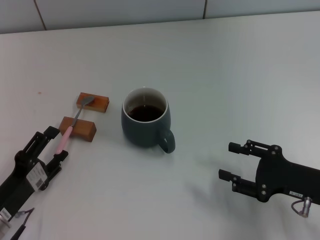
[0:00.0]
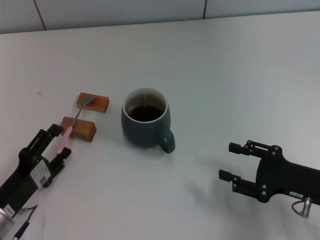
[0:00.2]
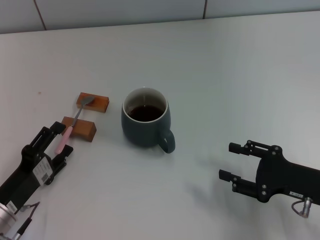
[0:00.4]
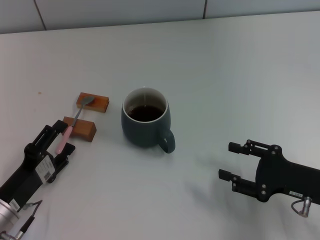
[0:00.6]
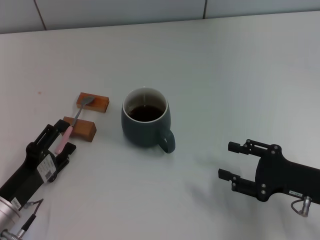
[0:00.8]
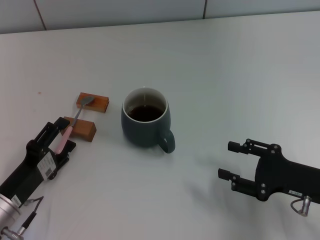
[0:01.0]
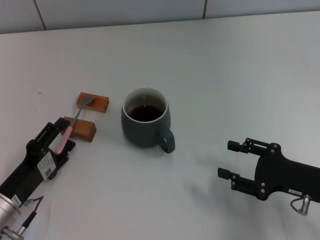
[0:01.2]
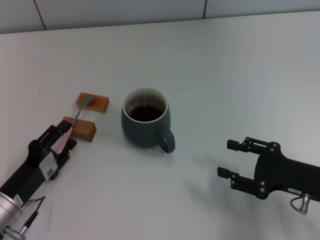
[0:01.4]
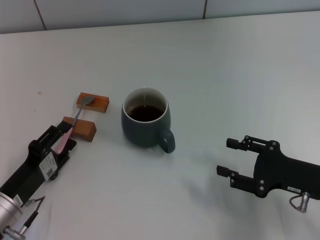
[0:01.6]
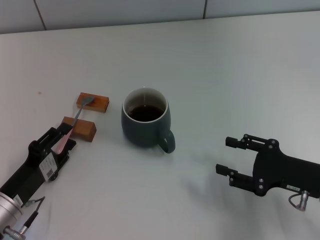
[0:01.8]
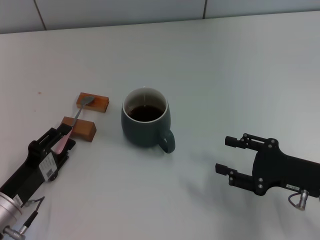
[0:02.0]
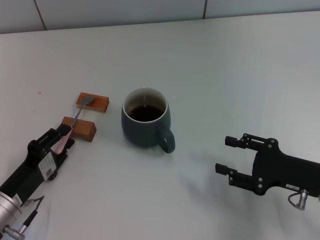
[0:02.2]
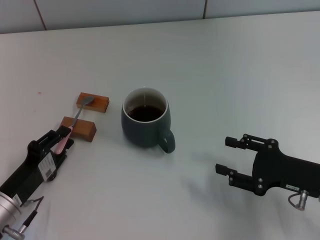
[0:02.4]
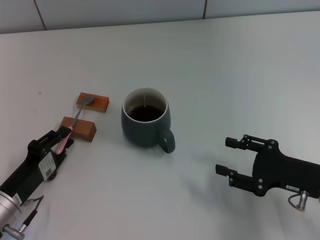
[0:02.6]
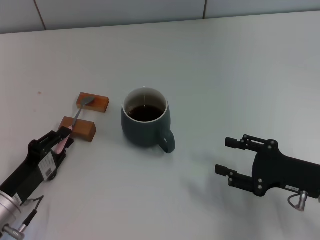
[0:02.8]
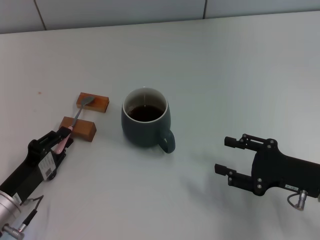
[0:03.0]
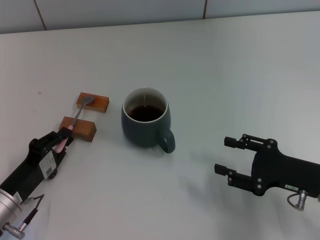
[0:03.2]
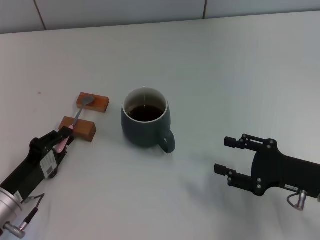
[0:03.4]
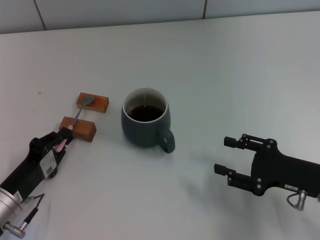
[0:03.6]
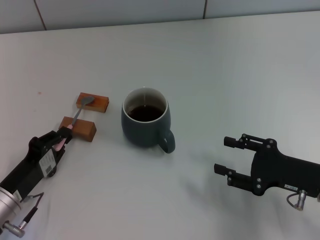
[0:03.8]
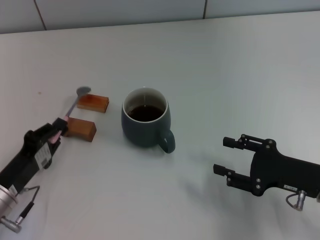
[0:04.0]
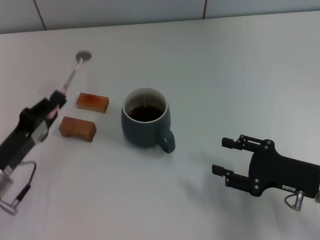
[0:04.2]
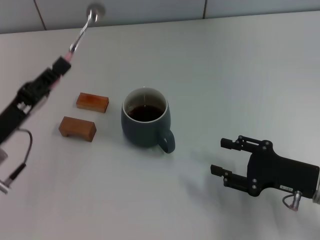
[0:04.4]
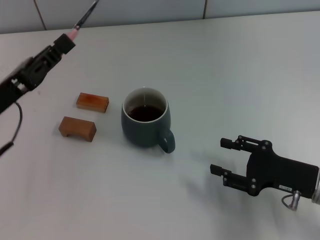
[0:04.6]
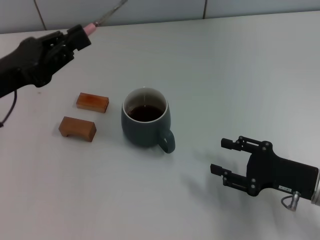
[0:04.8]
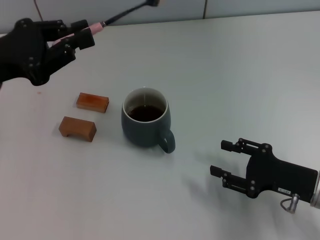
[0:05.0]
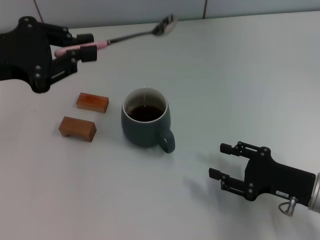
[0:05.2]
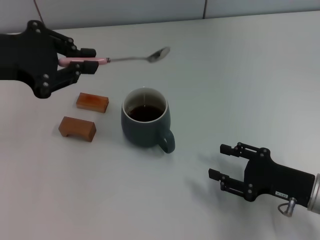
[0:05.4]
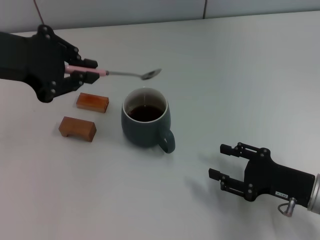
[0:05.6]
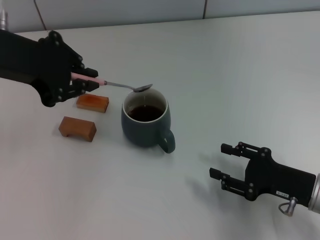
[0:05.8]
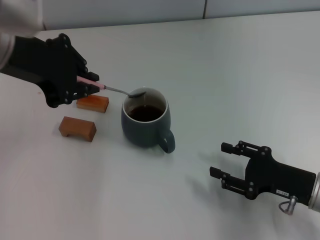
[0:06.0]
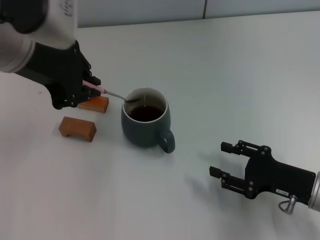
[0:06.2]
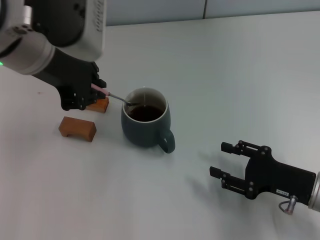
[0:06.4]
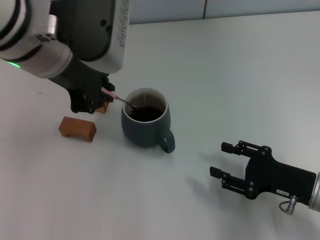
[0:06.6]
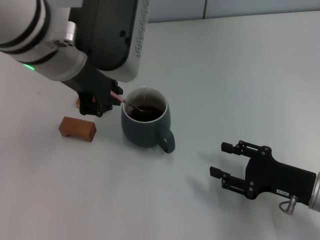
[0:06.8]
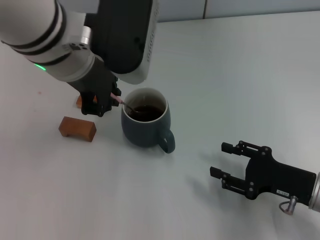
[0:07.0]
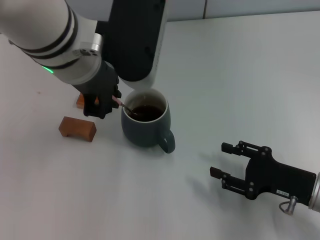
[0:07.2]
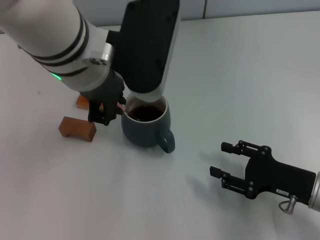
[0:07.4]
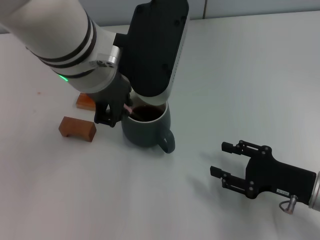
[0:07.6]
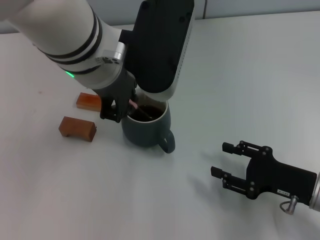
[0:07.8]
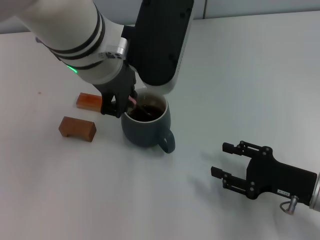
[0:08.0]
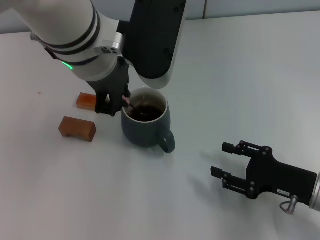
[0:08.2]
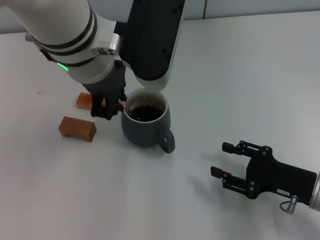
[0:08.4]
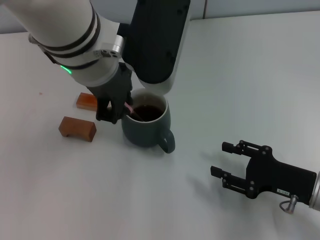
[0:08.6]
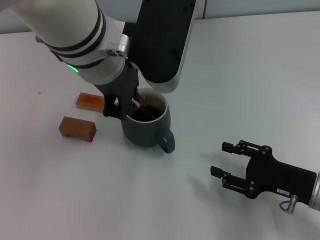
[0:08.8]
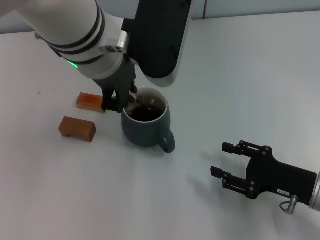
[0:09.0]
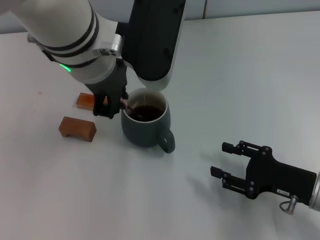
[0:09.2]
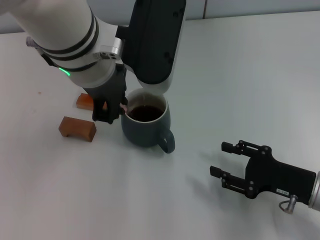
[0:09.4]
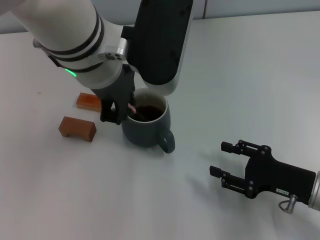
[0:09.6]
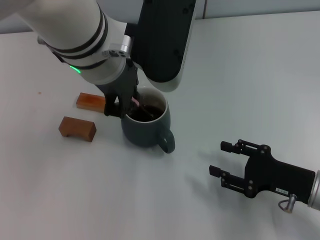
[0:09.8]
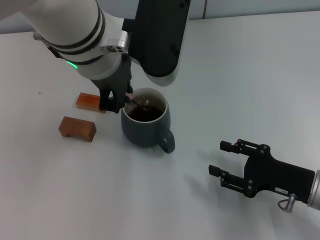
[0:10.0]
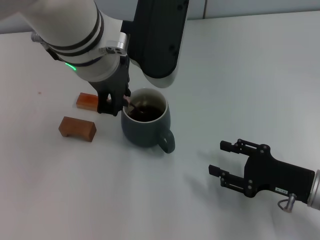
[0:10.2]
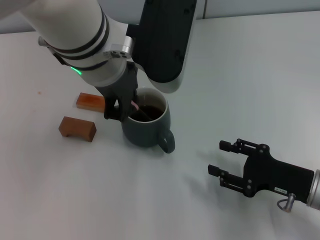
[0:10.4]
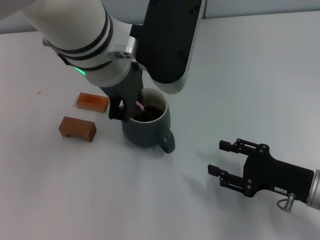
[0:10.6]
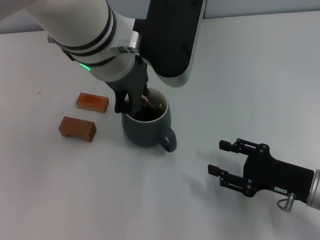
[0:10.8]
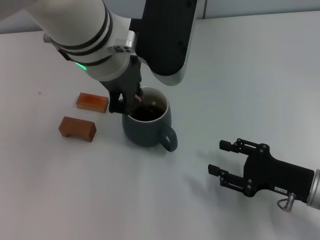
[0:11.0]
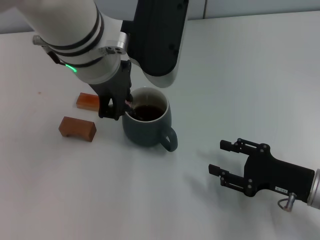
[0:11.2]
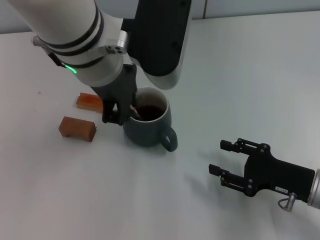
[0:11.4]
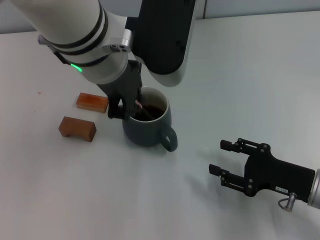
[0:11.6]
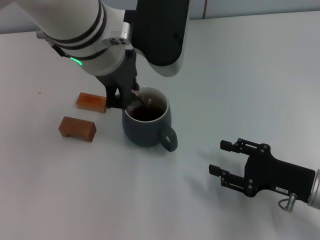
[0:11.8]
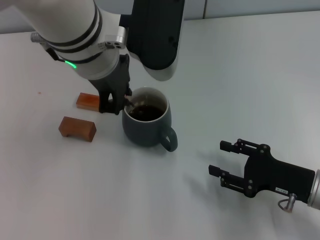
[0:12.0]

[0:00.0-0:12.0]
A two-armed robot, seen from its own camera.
Task of the whole recording: Move the grey cup to the center, lift the pink spoon, stir it three times in the cup, and put the spoon into the cup.
Step, 0:00.0 to 0:03.8: Pick up the spoon with the left gripper.
0:00.0 to 0:01.6: The grippers move only a little.
0:01.6 to 0:03.0: The left gripper closes up.
0:03.0 to 0:04.4: The left gripper moves upward and forward, roughly 10 cm.
0:04.4 to 0:06.0: The left gripper travels upward by approximately 20 cm.
0:06.0 to 0:07.6: The left gripper moves to the right, roughly 10 cm.
0:07.6 to 0:09.0: The grippers move only a little.
0:09.0 to 0:10.4: Neither gripper changes place.
0:10.4 to 0:12.0: Both grippers stay put.

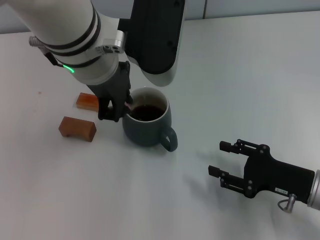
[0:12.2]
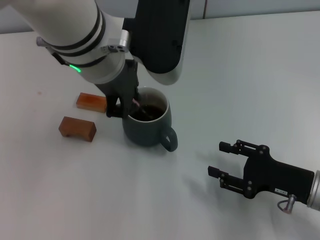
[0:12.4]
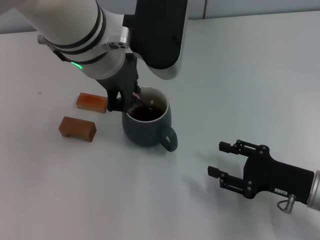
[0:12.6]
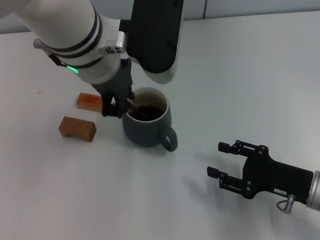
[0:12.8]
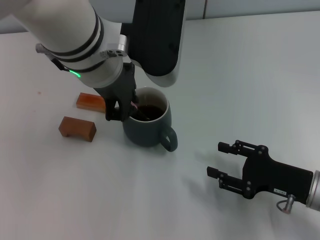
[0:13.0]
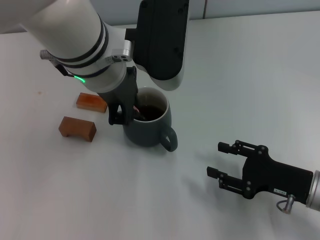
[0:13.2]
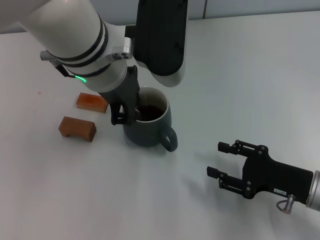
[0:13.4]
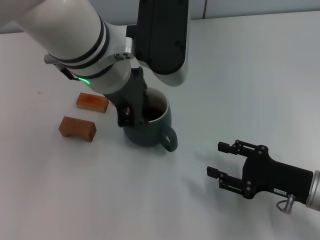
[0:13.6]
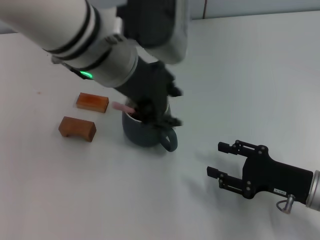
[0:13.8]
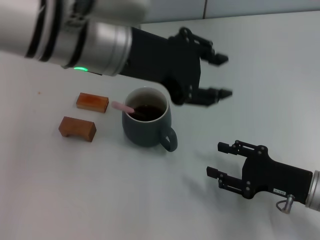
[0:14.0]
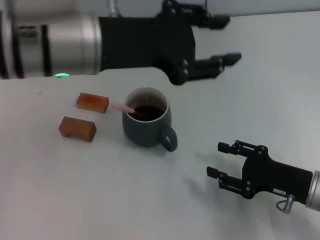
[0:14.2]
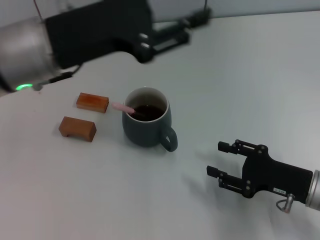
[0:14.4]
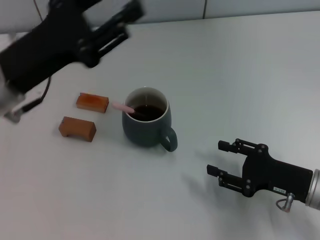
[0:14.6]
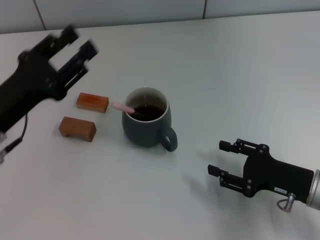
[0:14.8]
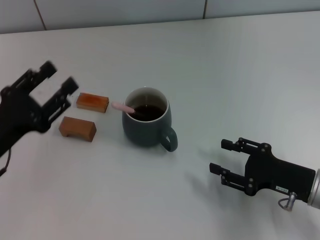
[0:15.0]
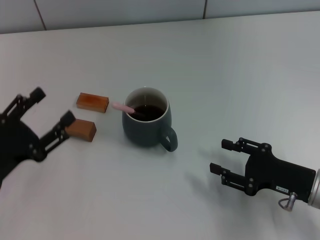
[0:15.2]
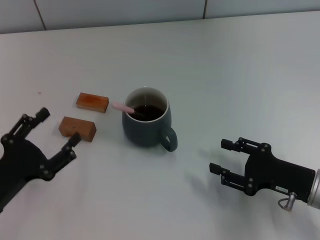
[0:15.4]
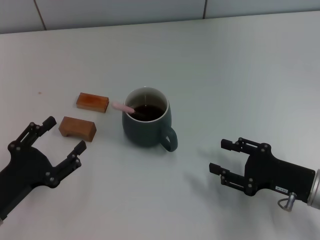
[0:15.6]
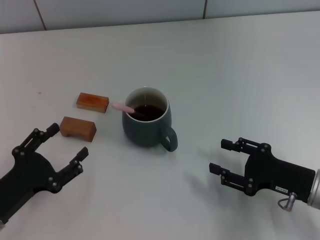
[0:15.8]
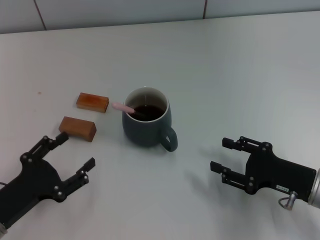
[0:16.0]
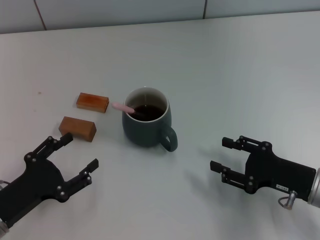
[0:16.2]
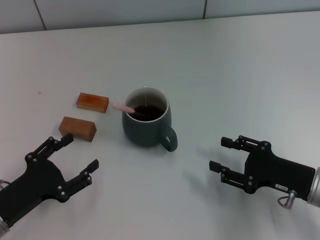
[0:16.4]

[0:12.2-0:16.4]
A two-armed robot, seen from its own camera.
Task of the whole recording: Move the grey cup to the center, lift the pink spoon, stir it three times in the cup, and put the spoon into the cup.
0:12.2 to 0:13.6: There are only small adjustments of the grippers.
0:13.6 to 0:15.0: The left gripper heads to the left, downward and backward, covering about 30 cm, and opens up.
0:15.0 to 0:16.4: The left gripper heads downward and backward, covering roughly 10 cm.
